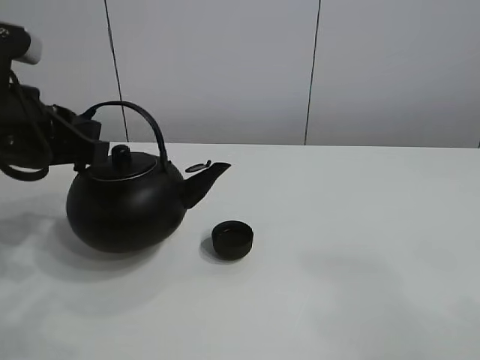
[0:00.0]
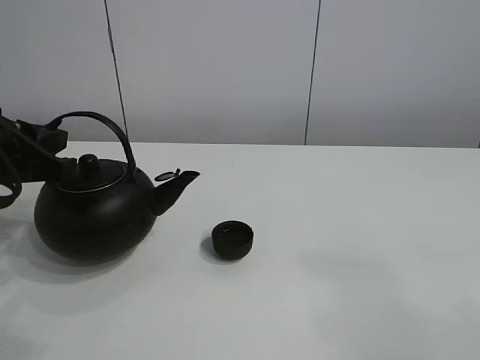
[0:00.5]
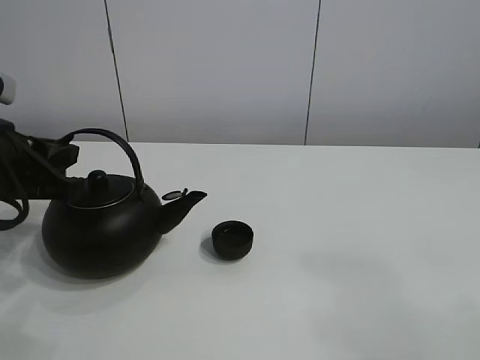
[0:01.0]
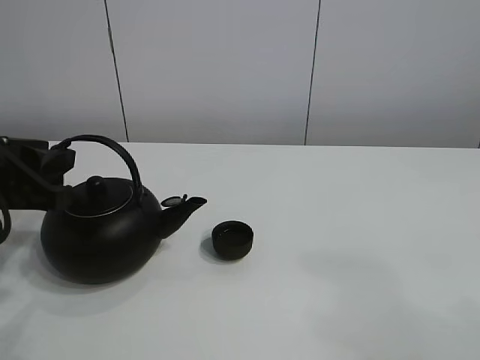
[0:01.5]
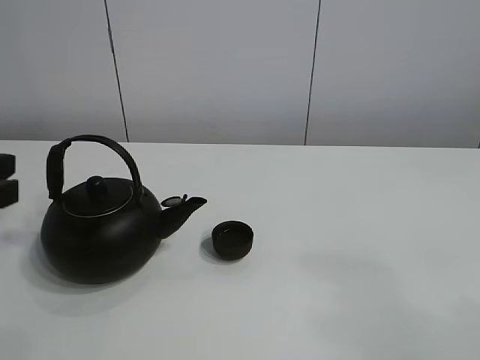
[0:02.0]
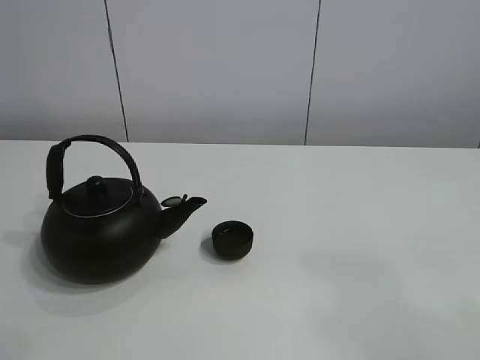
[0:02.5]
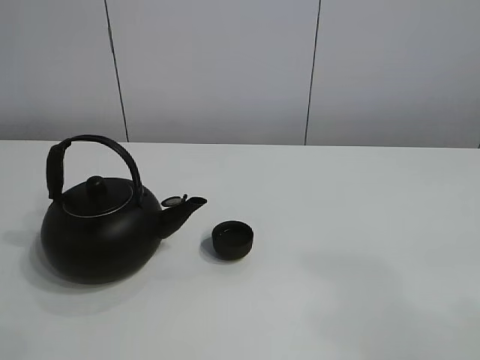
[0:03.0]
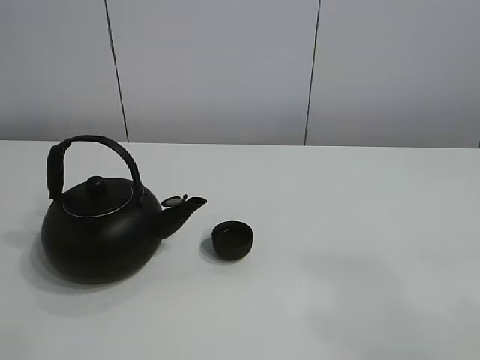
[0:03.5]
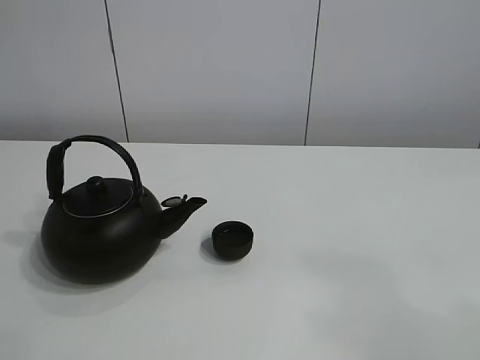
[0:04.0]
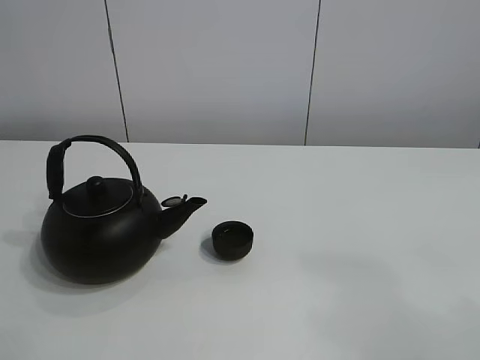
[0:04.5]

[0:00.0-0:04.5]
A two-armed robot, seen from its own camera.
Task of the whole recording: pour tea into the teacup.
0:00.0 to 0:02.0: The left gripper travels to the left and backward by some 10 cm, and opens up.
